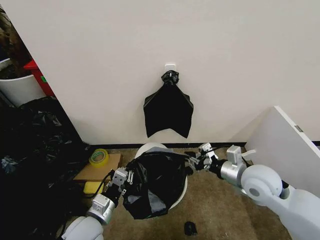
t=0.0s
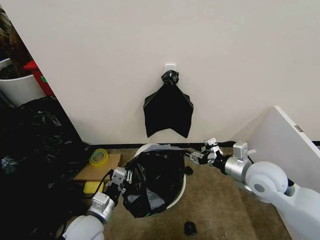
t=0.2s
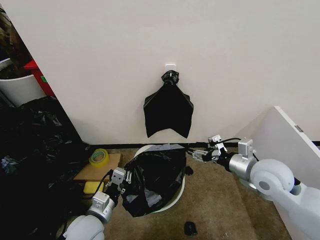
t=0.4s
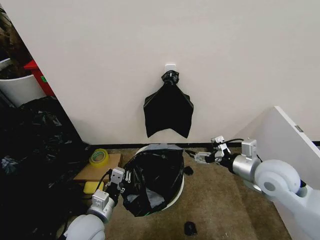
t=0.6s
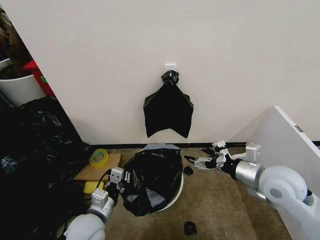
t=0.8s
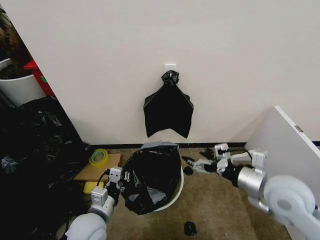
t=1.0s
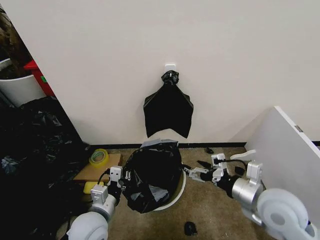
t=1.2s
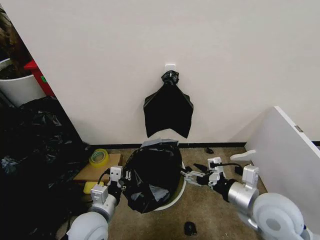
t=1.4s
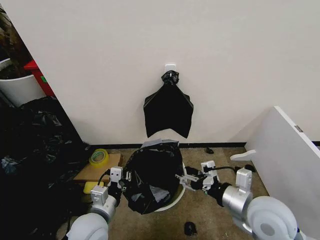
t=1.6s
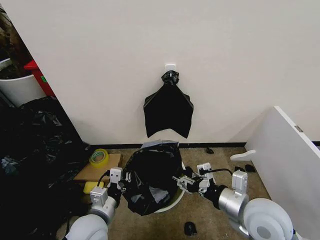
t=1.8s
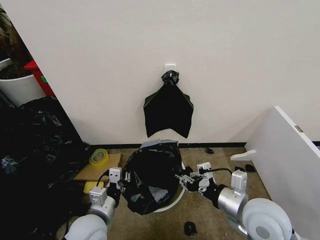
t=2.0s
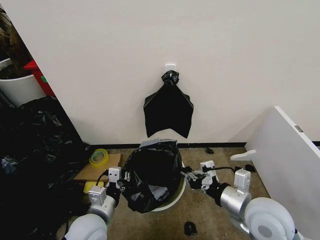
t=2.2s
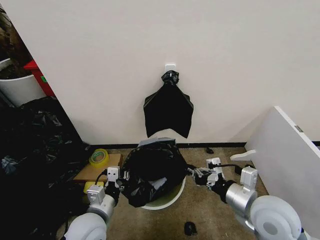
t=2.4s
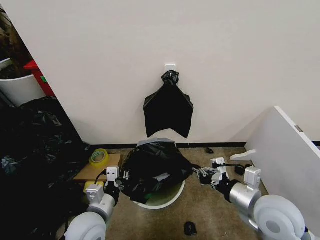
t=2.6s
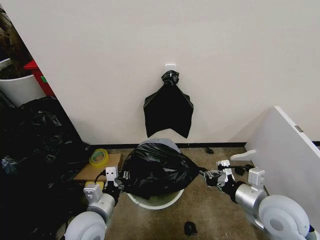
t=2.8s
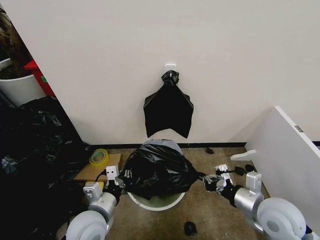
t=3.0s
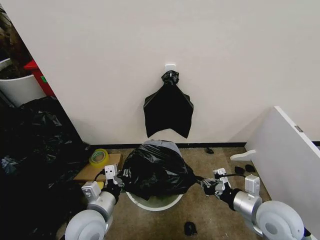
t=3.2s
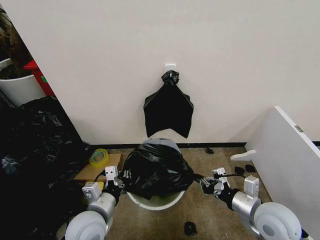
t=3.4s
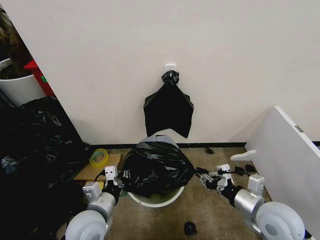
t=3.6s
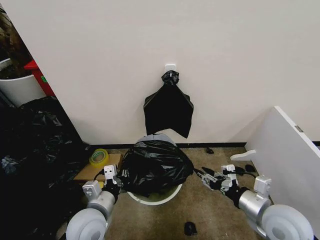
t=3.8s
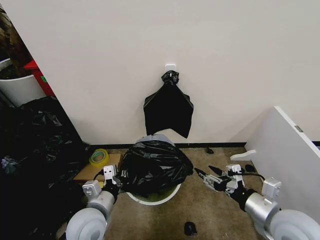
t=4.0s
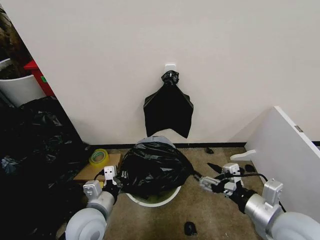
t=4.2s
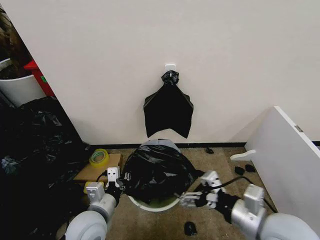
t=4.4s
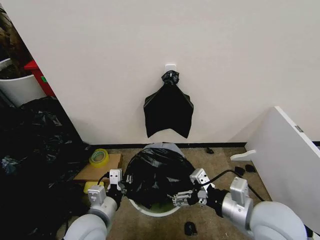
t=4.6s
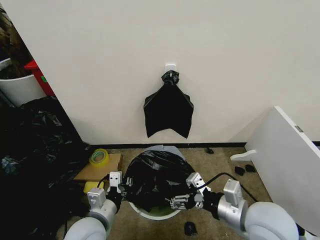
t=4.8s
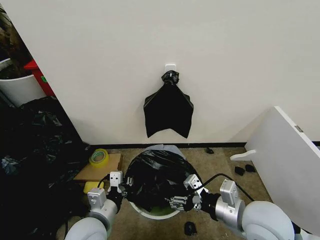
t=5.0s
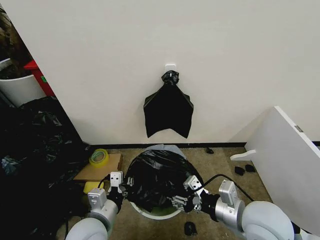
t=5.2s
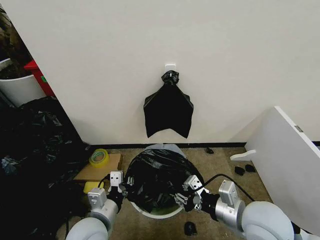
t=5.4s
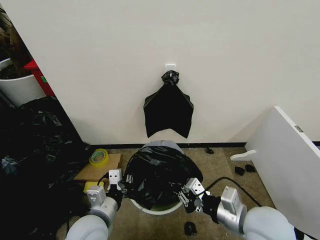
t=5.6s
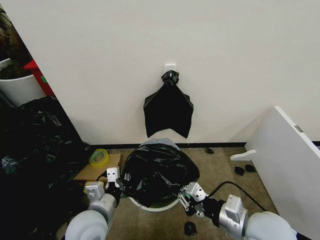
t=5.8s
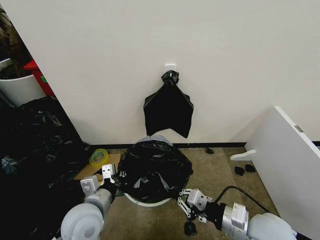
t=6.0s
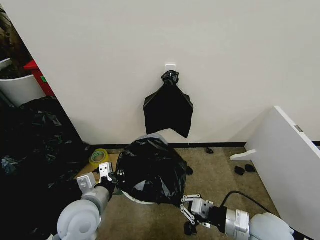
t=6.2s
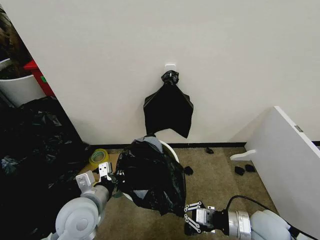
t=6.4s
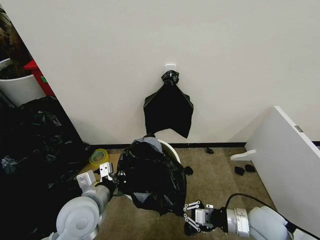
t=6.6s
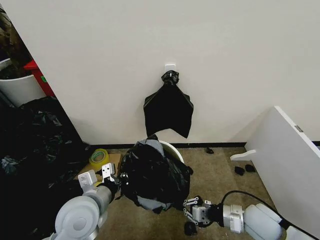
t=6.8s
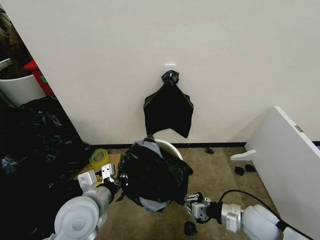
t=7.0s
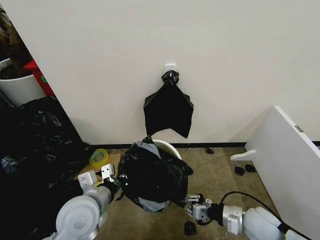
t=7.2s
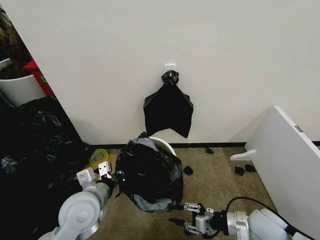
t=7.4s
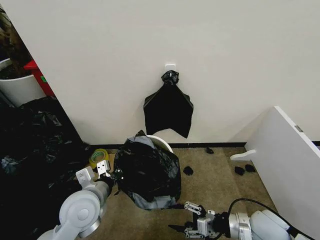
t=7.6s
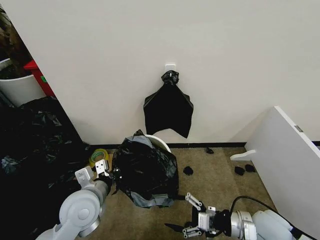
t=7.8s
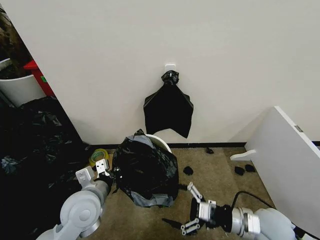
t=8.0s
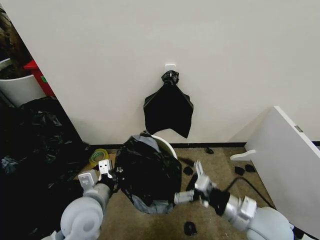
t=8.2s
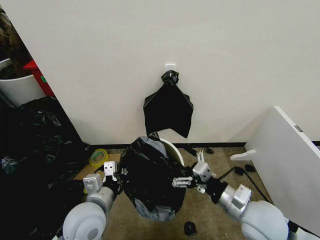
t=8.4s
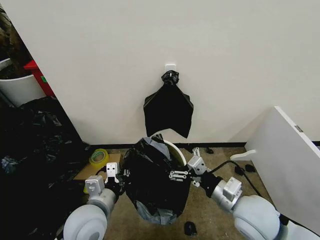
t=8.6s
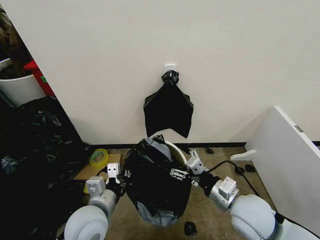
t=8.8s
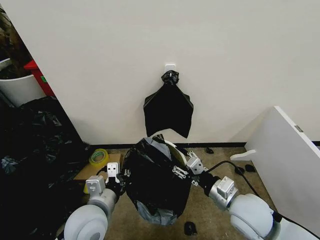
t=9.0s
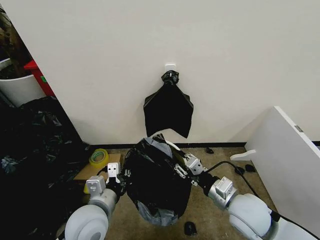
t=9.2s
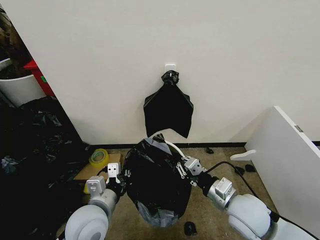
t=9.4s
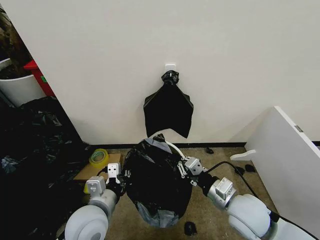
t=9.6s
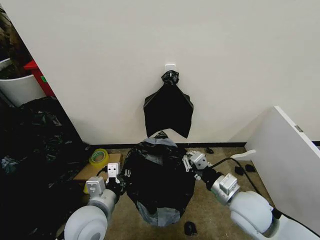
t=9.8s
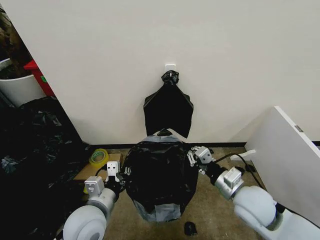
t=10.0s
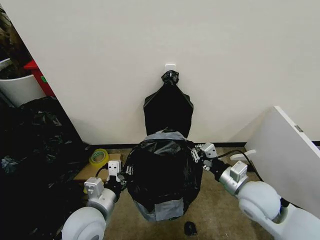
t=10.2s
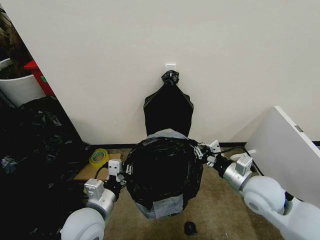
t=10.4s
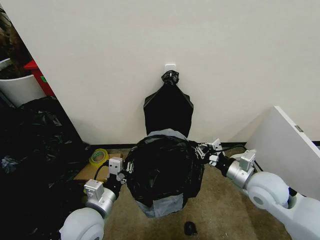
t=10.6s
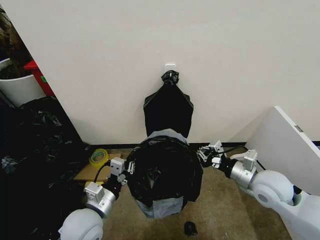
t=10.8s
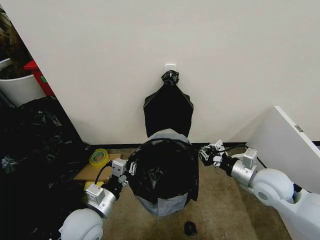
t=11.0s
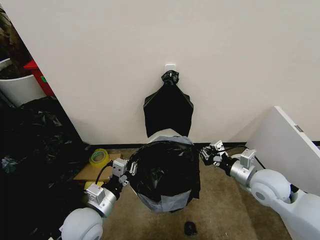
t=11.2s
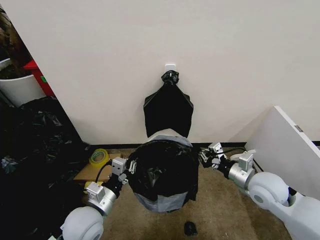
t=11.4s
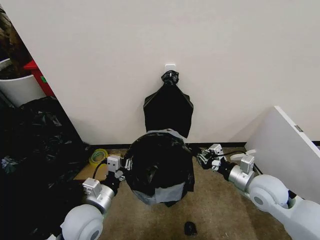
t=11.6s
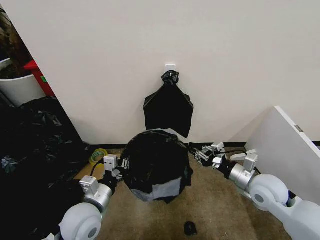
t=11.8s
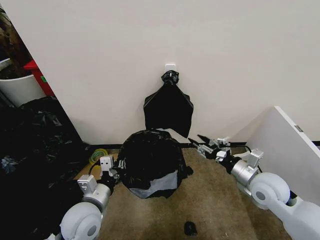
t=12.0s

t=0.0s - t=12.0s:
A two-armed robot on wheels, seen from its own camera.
Task of the whole recording: Place the garbage bag over the trash bin.
t=0.0s - t=1.6s: The right gripper moves backward, roughly 10 cm, and opens.
t=1.6s - t=3.0s: The right gripper ends up some 5 cm from where it was, and closes its fingers.
t=3.0s - t=4.4s: The right gripper shifts some 5 cm backward, and opens.
t=4.4s - t=6.0s: The right gripper is displaced downward by some 5 cm, and closes up.
t=6.0s - t=7.6s: The right gripper moves downward and to the right, about 10 cm, and opens up.
t=7.6s - t=9.0s: The right gripper is displaced upward and to the left by roughly 10 cm, and opens, then closes once more.
t=9.0s - t=10.4s: The right gripper moves some 5 cm, and closes.
t=10.4s - t=12.0s: The right gripper ends up about 5 cm from where it was, and opens.

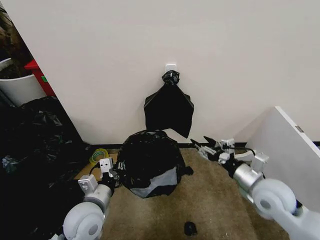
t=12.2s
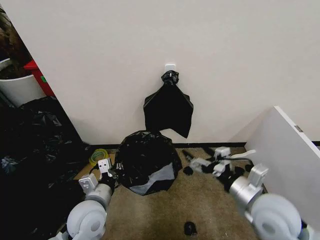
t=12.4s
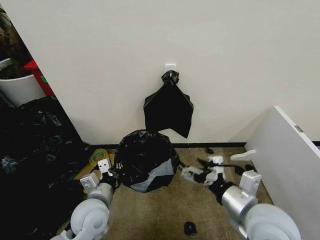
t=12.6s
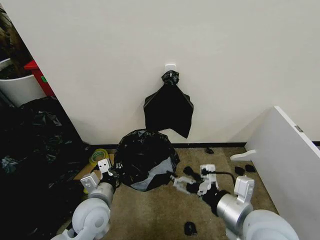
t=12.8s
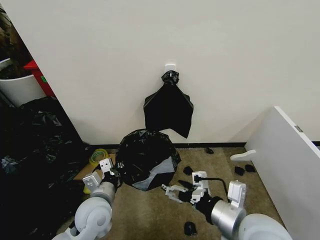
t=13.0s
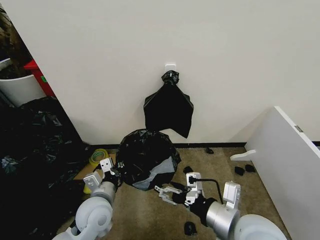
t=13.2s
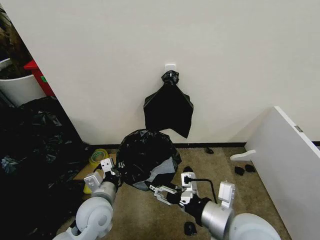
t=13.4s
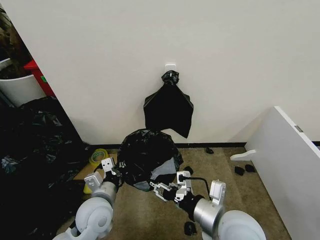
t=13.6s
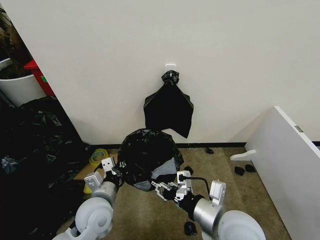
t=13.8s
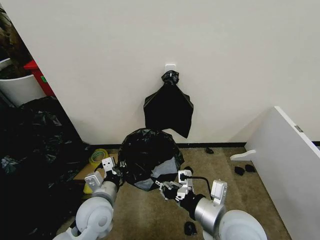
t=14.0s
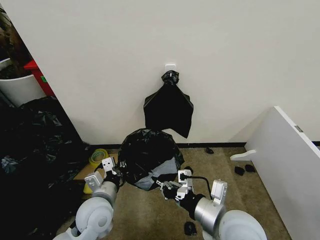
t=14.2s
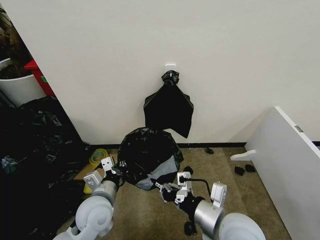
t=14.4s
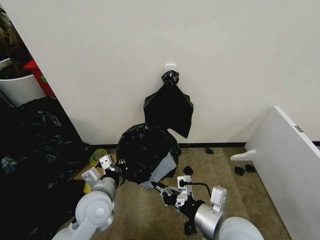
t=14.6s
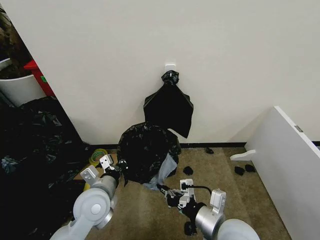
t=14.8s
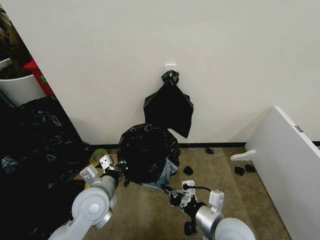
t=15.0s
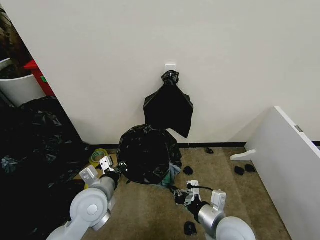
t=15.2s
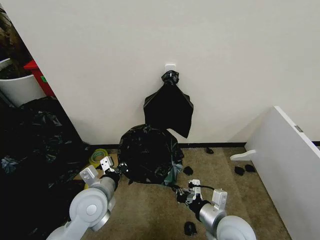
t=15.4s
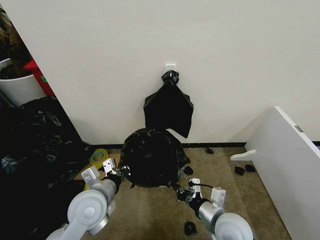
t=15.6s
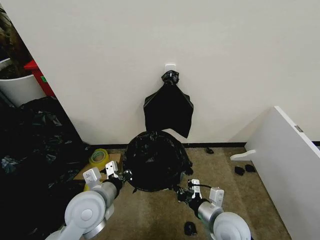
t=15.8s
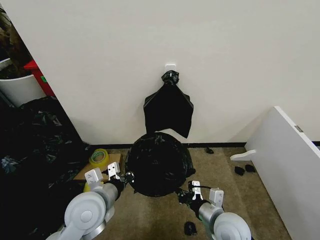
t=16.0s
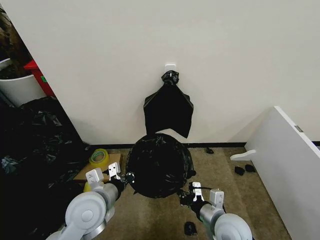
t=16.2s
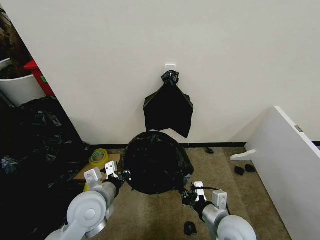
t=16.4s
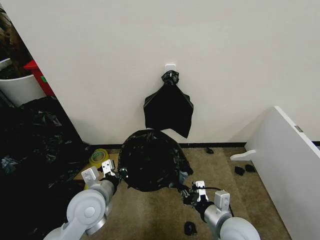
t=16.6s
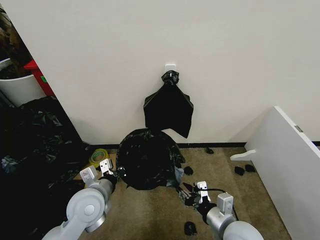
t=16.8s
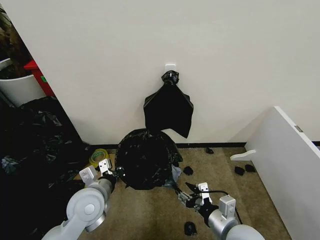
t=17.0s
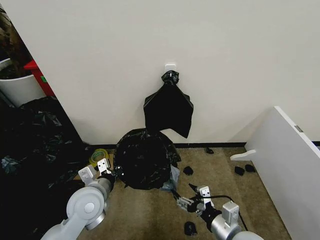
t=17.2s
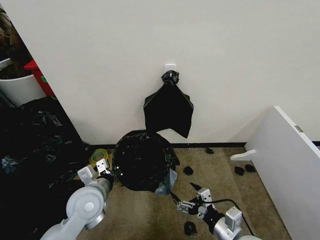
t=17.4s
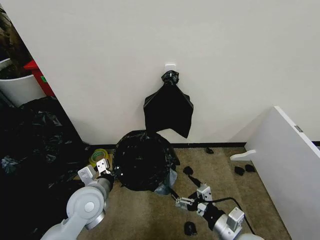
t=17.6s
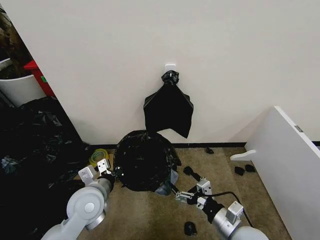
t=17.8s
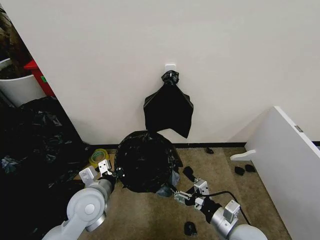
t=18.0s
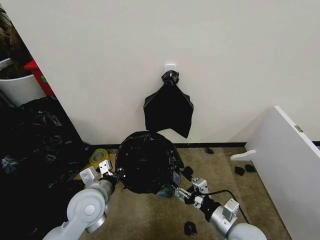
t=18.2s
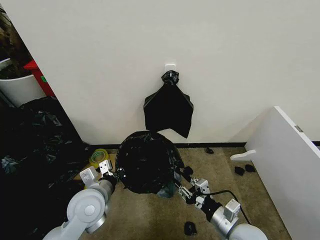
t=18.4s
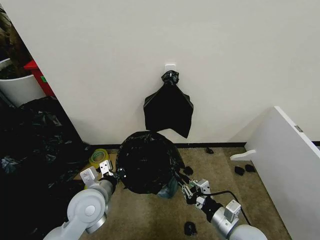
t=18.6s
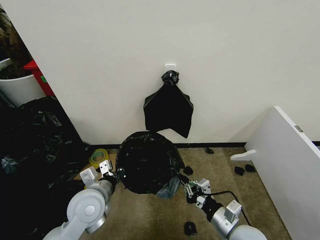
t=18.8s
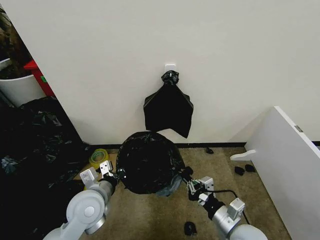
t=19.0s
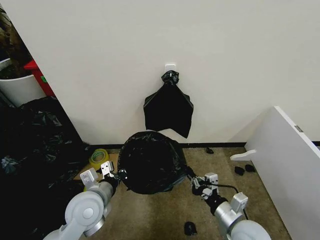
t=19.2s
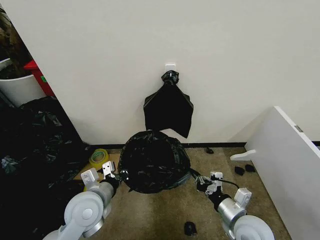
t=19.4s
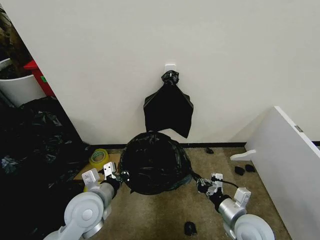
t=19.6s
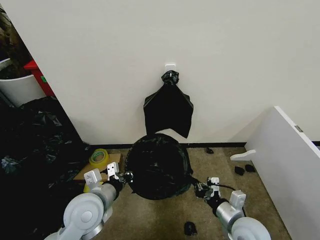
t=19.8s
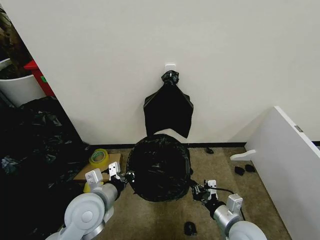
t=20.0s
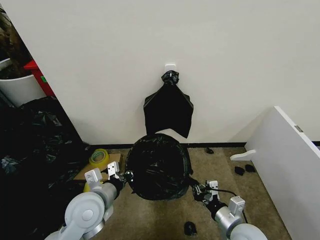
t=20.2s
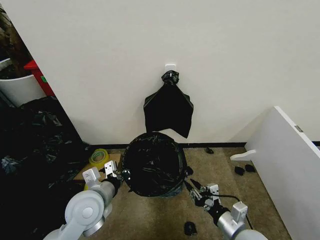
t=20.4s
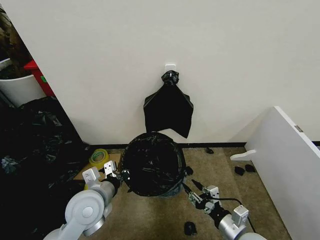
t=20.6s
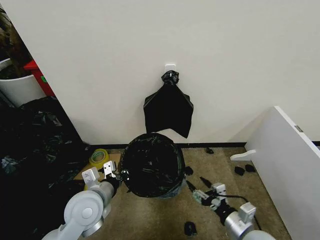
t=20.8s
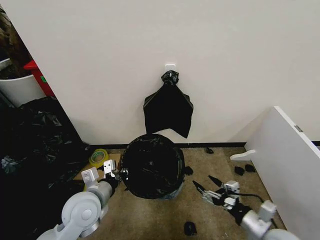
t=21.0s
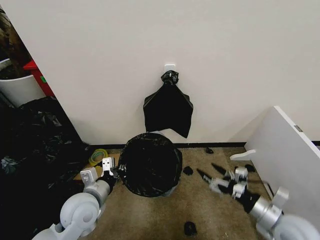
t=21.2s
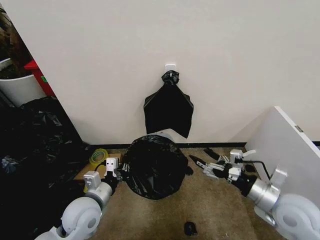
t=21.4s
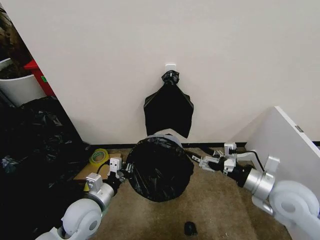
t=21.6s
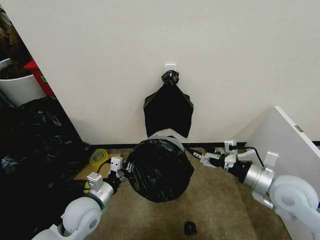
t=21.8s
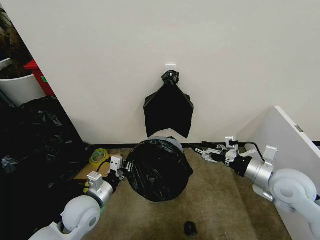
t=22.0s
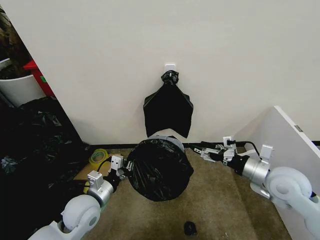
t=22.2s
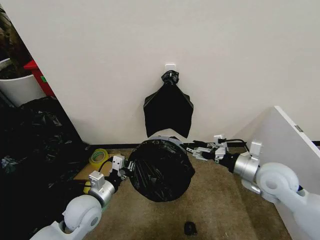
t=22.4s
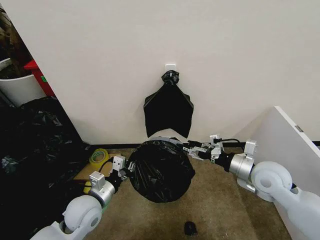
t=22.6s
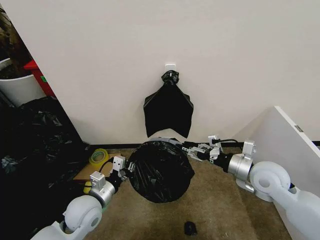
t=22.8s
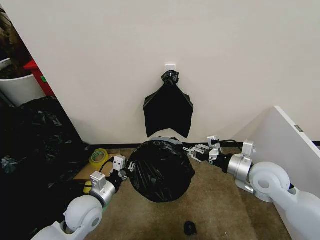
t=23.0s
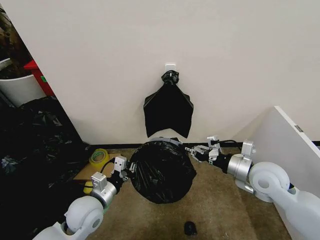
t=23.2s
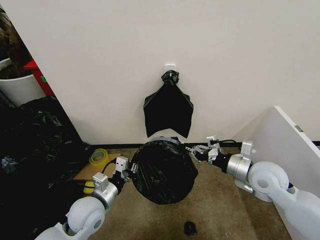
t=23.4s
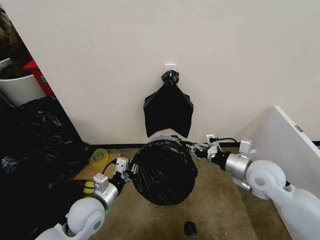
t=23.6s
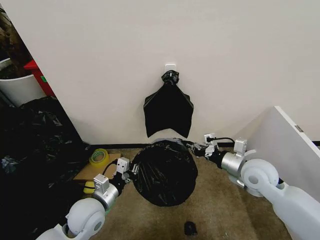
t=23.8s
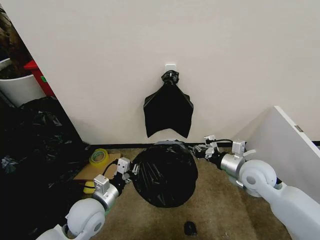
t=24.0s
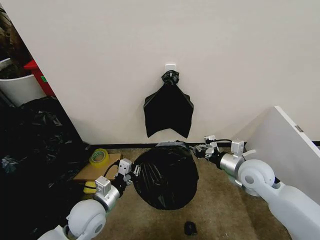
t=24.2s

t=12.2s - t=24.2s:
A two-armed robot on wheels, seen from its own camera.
Task of the whole recording: Place the garbage bag over the trash bin.
t=12.2s - t=13.8s: The right gripper goes roughly 15 cm to the left and backward, and closes.
t=13.8s - t=15.2s: The right gripper travels downward by about 10 cm.
t=15.2s - t=16.6s: There are only small adjustments of the grippers.
t=16.6s - t=18.2s: The right gripper opens up.
t=18.2s - t=19.8s: The right gripper closes up.
t=19.8s - t=21.2s: The right gripper shifts some 10 cm to the right and upward, and opens up.
t=21.2s - t=22.6s: The right gripper moves forward and upward, roughly 15 cm.
t=22.6s - t=24.2s: The right gripper closes its fingers.
